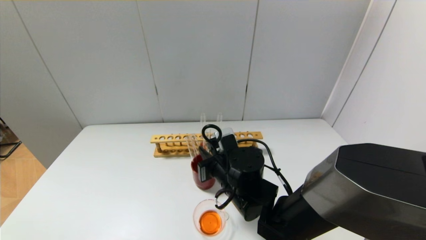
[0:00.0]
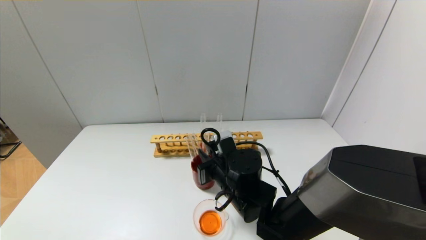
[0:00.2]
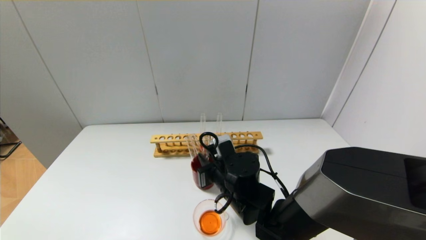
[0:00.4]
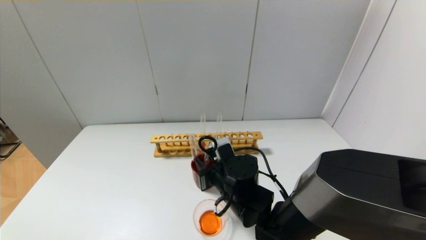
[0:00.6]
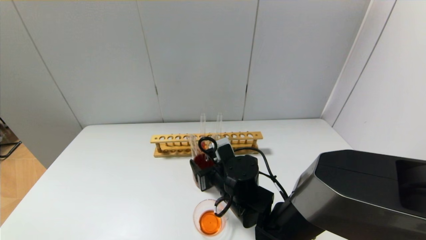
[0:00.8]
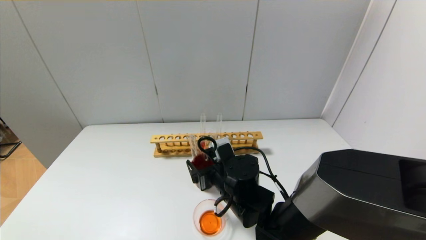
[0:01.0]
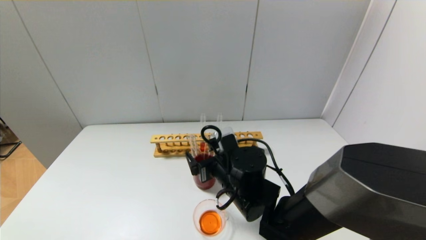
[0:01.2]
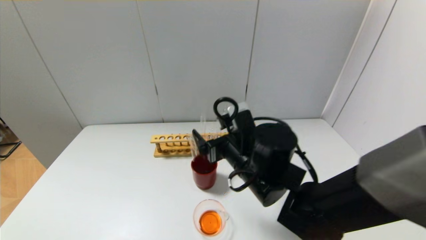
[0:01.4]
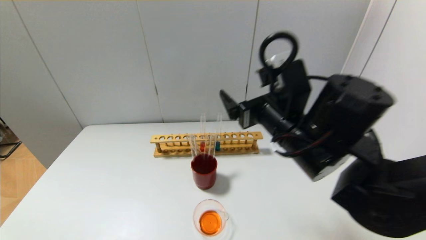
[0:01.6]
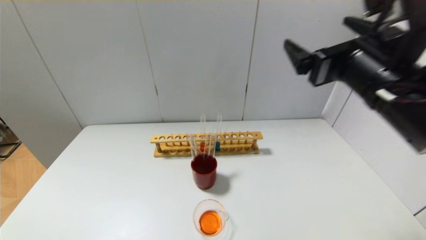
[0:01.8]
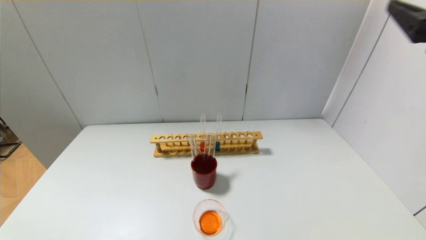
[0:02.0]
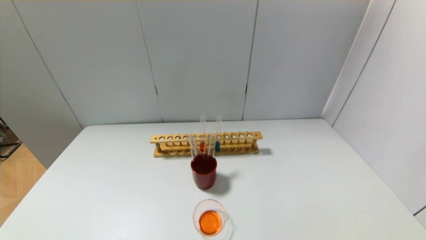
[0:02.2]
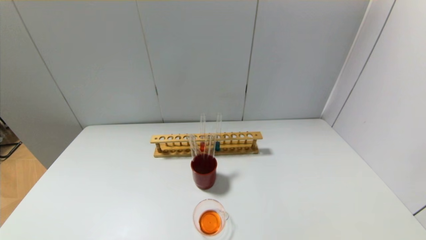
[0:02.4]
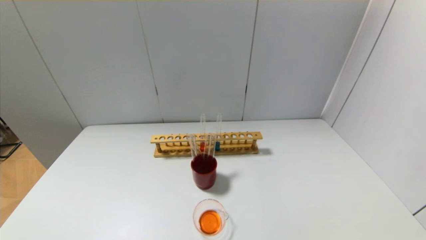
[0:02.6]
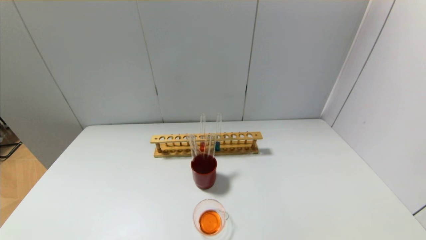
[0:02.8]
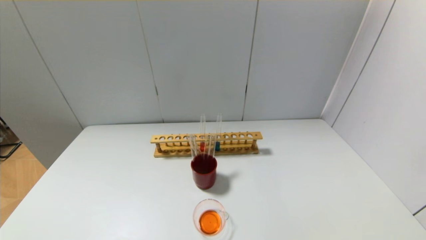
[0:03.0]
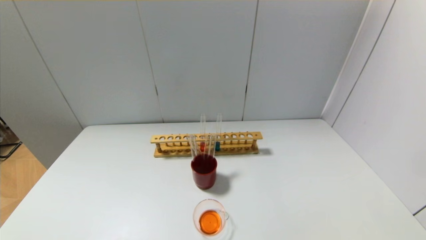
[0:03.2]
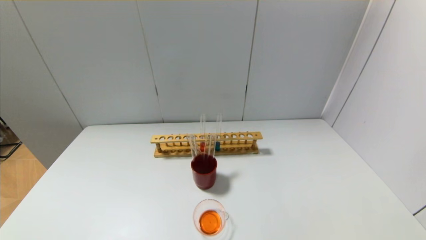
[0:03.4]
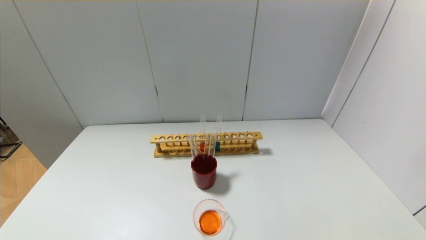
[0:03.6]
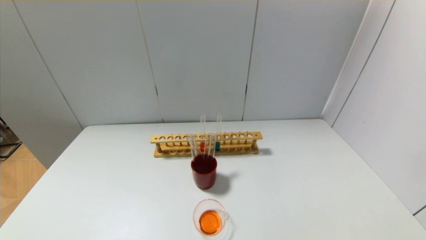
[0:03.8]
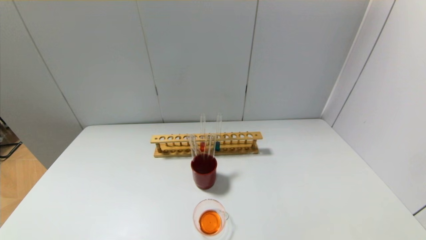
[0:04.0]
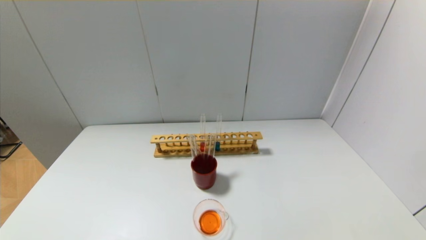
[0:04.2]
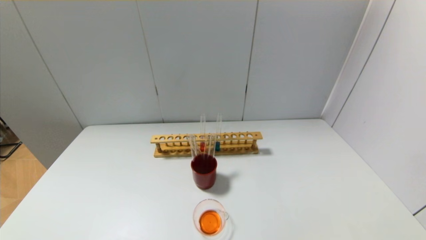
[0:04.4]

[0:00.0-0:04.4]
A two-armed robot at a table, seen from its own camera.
0:00.0 to 0:01.4: The right gripper shifts roughly 5 cm upward, and opens its fingers.
0:01.4 to 0:03.0: The right gripper shifts roughly 40 cm backward and to the right.

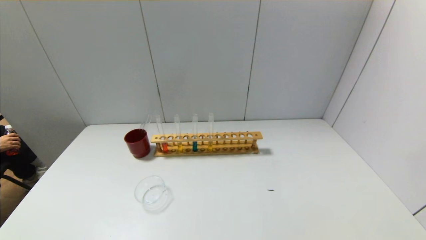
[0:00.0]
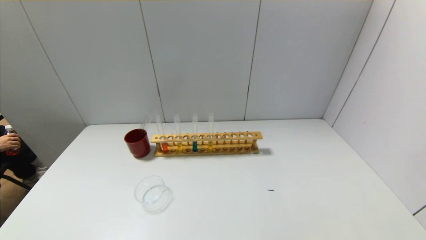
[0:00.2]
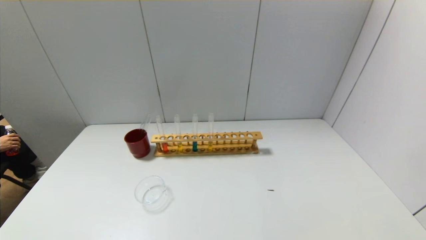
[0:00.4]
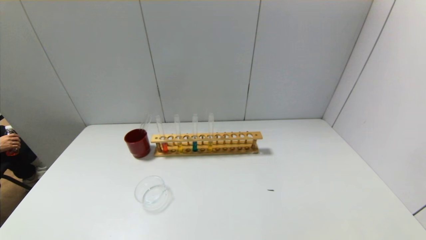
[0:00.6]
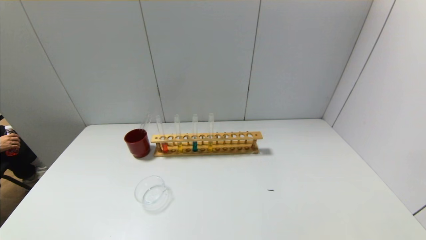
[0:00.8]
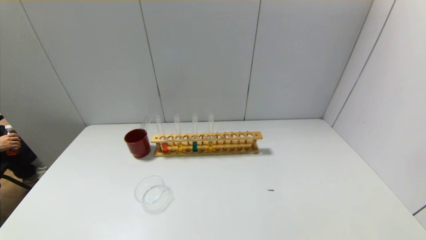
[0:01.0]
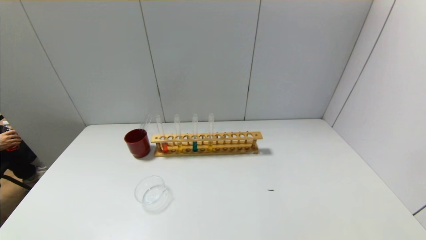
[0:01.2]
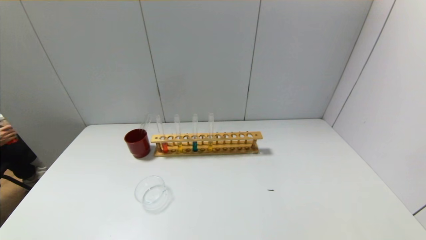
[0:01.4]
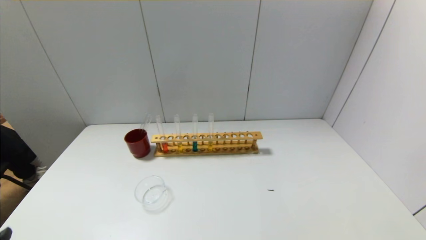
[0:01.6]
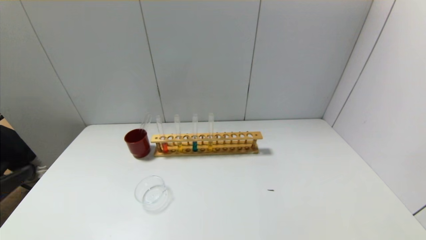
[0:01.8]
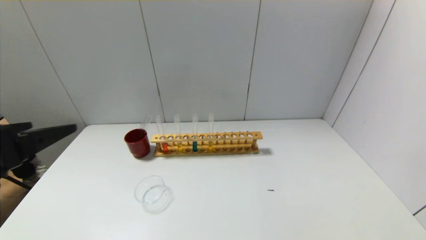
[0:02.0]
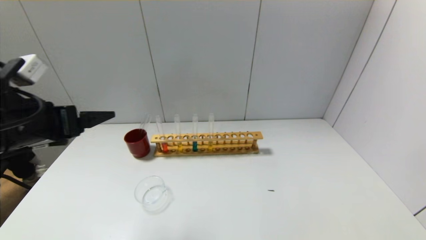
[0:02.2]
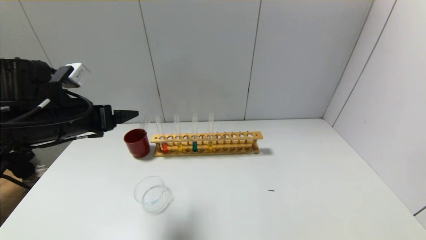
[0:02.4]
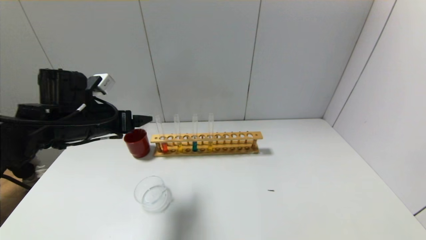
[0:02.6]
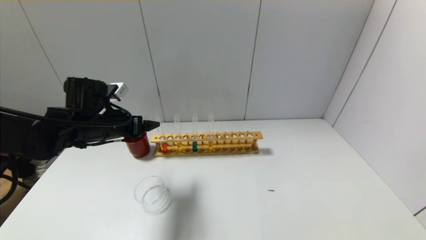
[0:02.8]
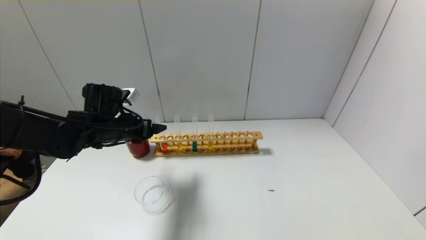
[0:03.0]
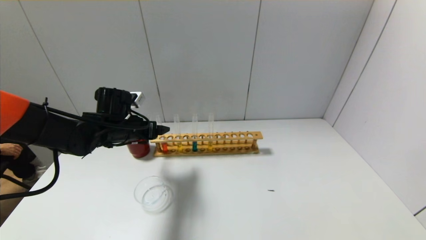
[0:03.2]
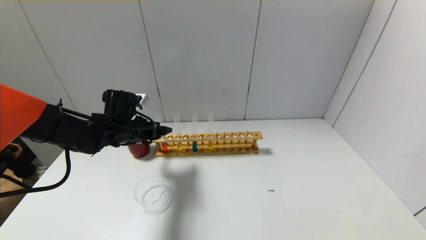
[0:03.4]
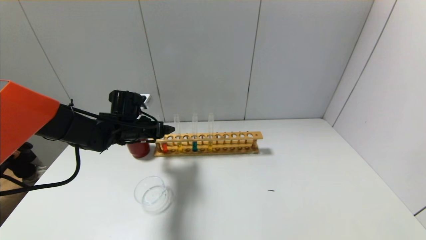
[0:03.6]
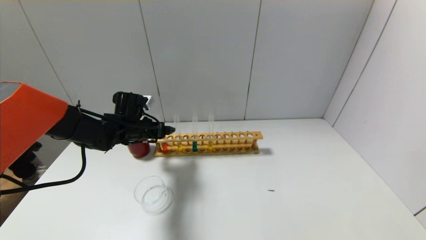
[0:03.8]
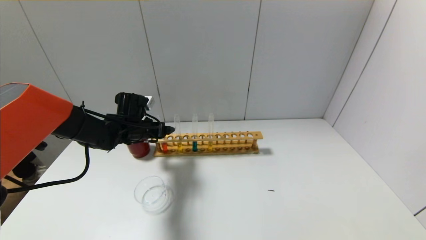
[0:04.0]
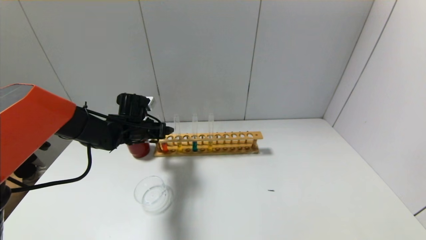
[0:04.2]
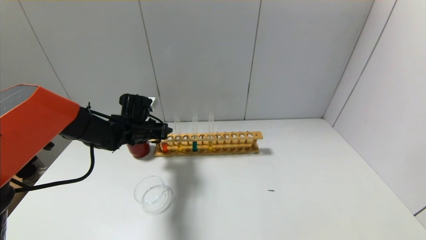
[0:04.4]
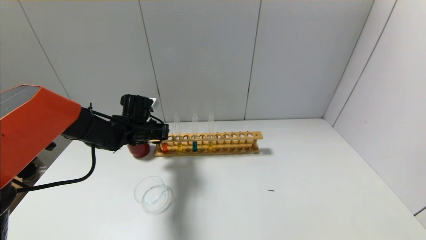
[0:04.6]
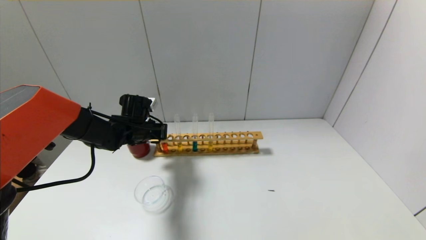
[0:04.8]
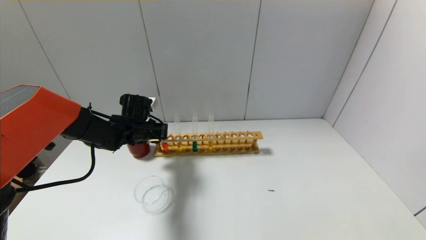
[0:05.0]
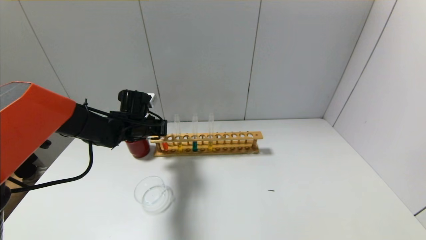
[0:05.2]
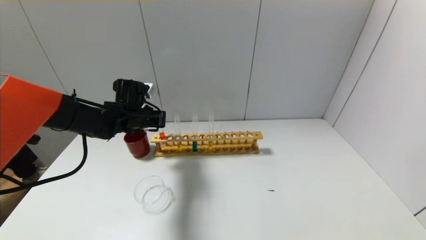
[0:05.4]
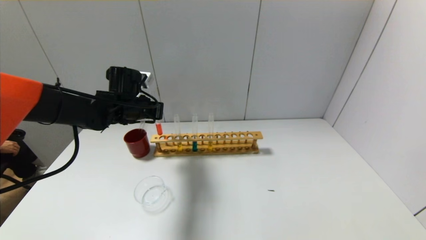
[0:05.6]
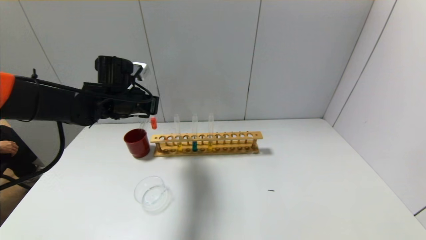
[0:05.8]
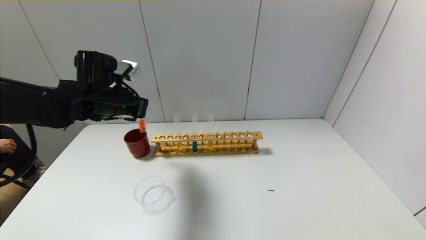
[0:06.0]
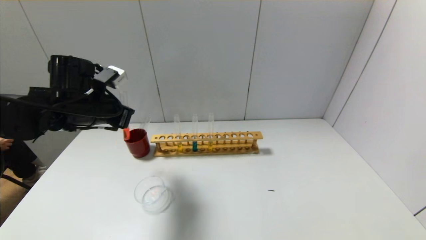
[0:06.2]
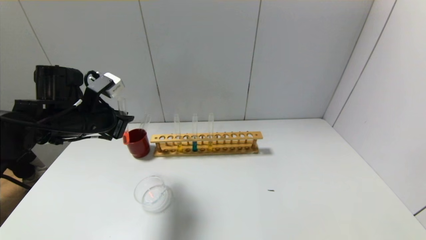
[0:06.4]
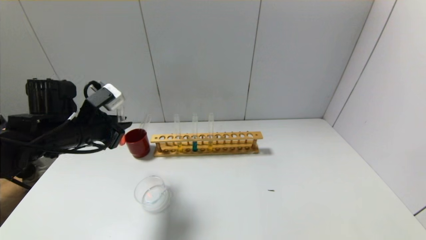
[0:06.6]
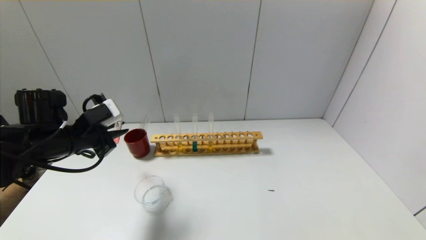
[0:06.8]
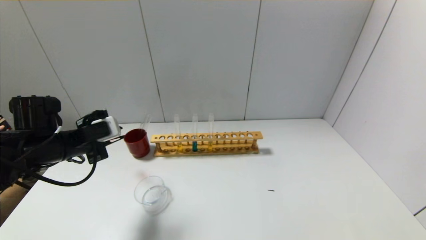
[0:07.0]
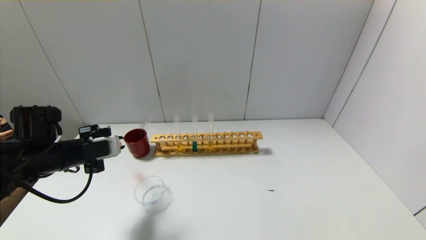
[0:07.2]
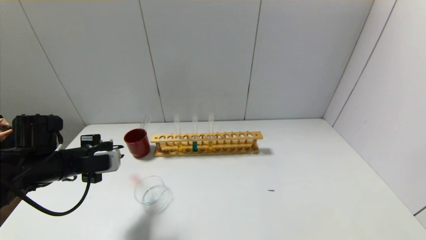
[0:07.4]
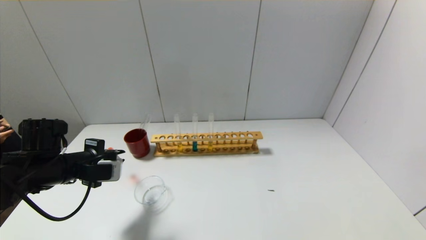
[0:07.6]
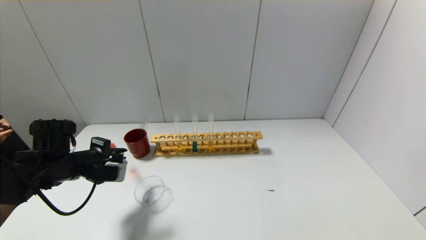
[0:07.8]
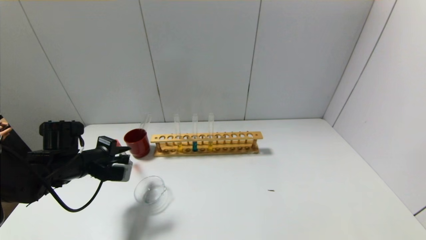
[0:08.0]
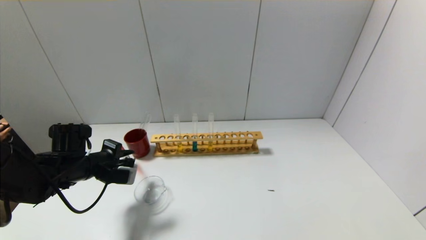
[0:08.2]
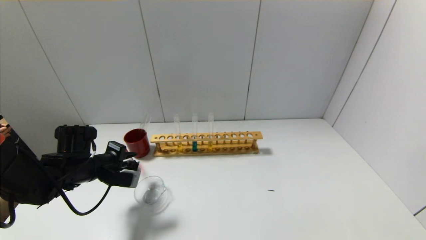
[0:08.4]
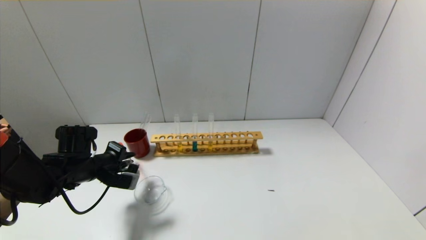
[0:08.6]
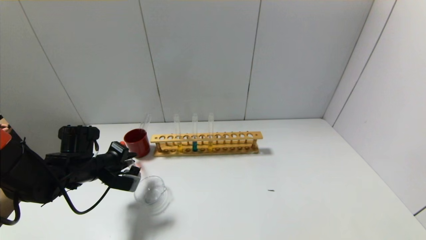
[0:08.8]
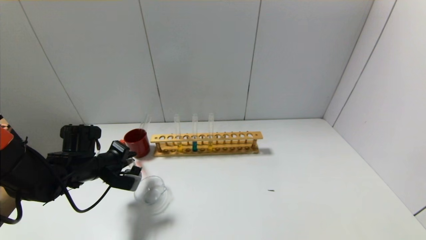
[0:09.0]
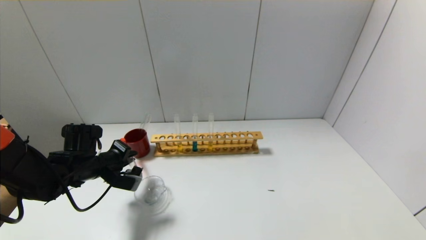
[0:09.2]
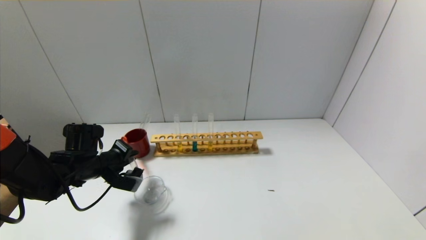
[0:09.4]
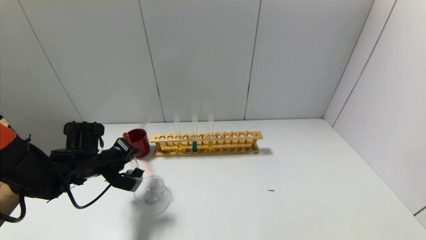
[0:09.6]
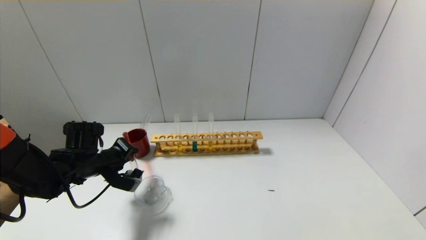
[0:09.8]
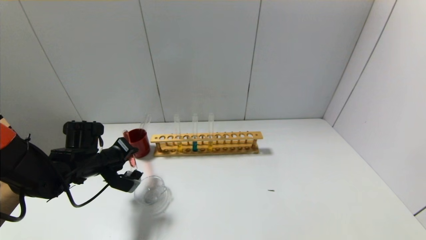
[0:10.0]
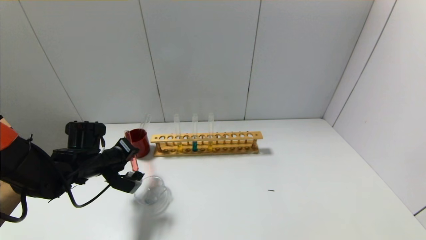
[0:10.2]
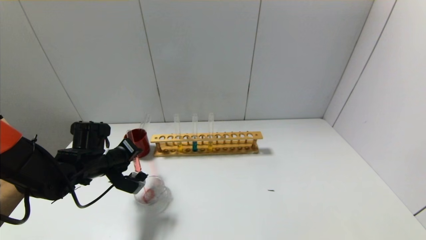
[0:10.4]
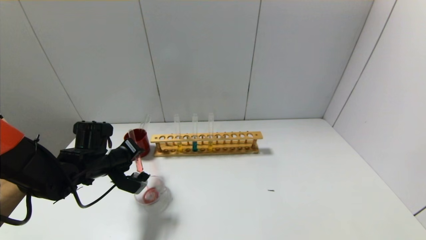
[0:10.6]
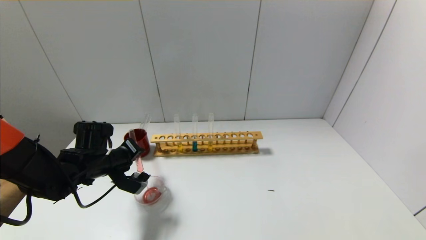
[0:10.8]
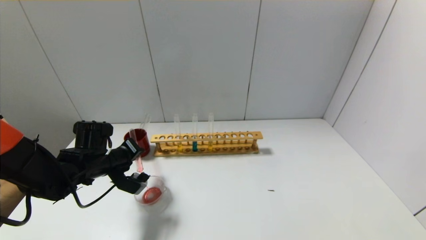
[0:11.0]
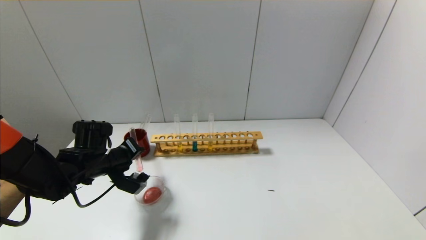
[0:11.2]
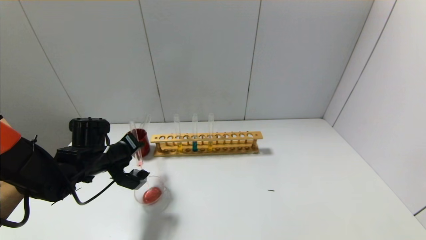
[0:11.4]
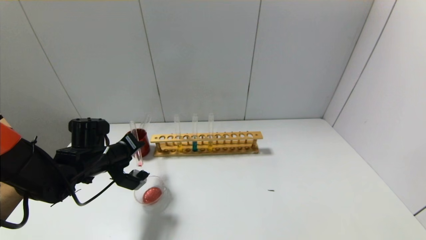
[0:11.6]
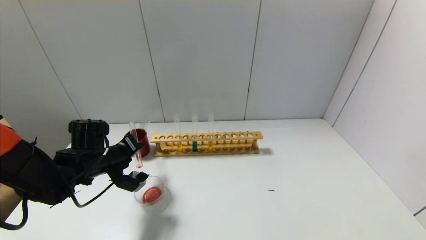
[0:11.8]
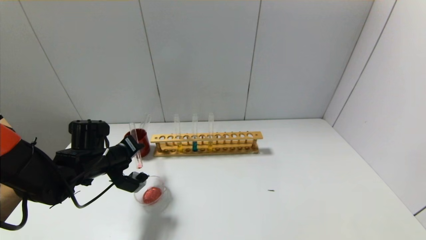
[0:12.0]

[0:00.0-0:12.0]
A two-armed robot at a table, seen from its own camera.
Step, 0:00.0 to 0:04.8: Grasp the red reagent with the left gripper.
0:00.0 to 0:01.6: The left gripper heads upward, covering about 15 cm.
0:01.6 to 0:03.0: The left gripper heads forward, covering about 35 cm.
0:03.0 to 0:04.4: The left gripper moves forward, approximately 5 cm, and closes.
0:04.4 to 0:06.0: The left gripper is displaced upward and backward by about 15 cm, and closes up.
0:06.0 to 0:07.6: The left gripper travels downward, backward and to the left by some 15 cm.
0:07.6 to 0:09.0: The left gripper moves some 5 cm.
0:09.0 to 0:10.4: The grippers stay close to where they were, moving slightly.
0:10.4 to 0:12.0: The grippers move only a little.
